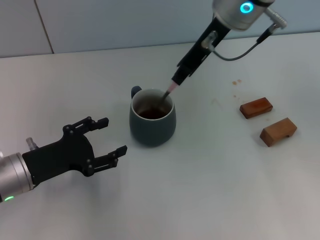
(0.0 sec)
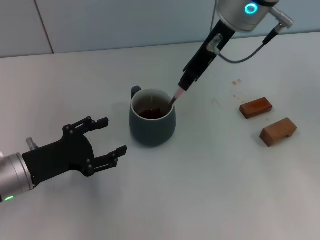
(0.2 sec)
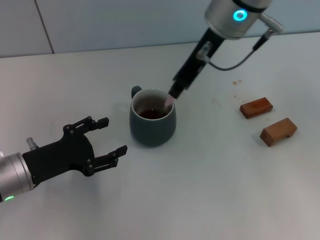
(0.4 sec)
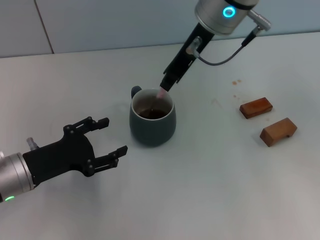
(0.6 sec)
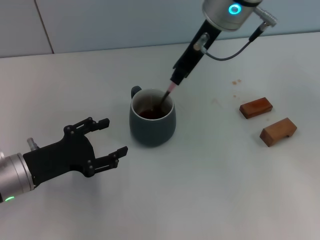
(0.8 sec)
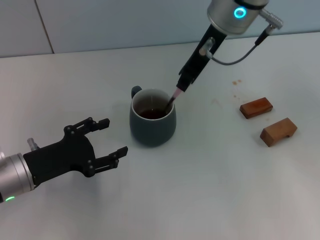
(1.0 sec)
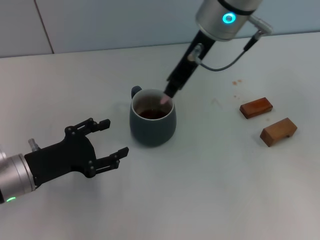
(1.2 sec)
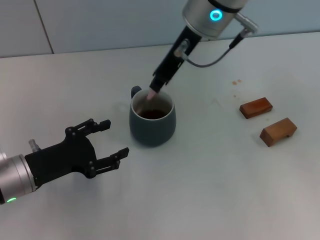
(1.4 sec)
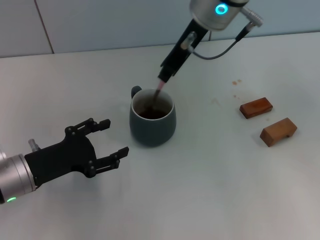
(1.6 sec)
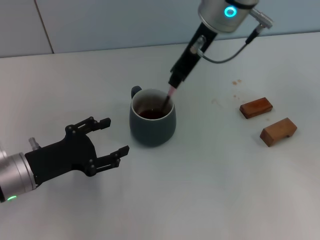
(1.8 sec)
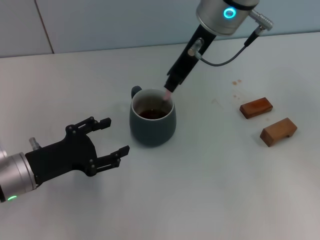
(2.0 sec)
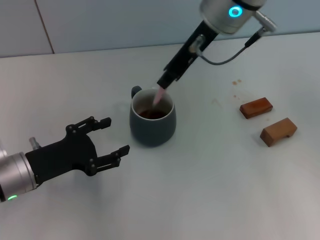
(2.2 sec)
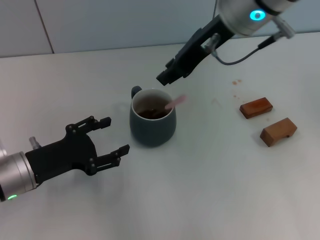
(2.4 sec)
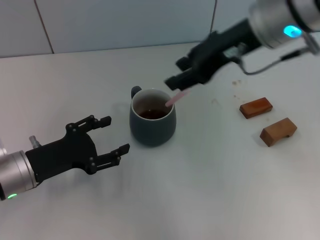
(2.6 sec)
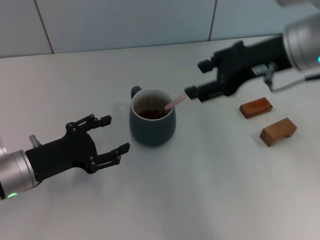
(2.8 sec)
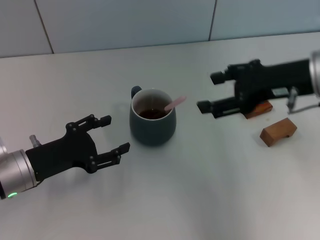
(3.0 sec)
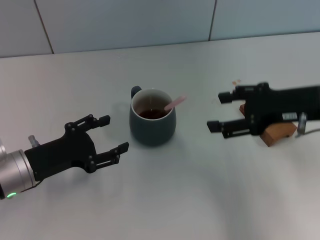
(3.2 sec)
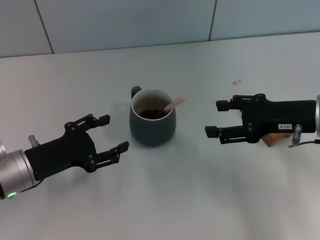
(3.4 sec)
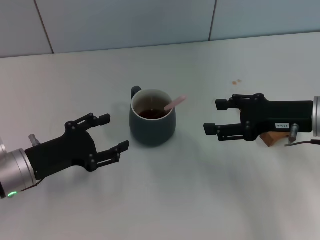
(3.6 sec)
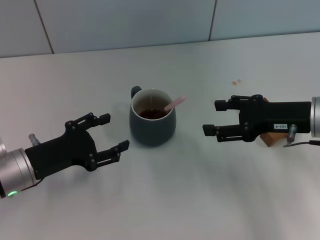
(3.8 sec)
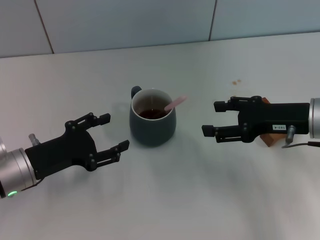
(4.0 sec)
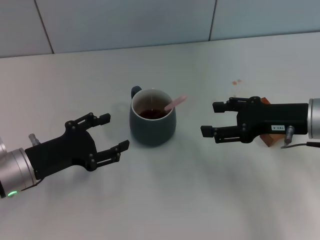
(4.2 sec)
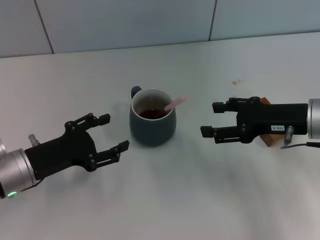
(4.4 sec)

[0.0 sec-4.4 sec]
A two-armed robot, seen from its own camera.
Task of the whole recording: Move the grey cup to the center, lift the pink spoon, stir it three times in the cup, and put the spoon into the cup.
Step, 0.0 sec to 2.2 sec: Stir the coffee in the cup with the right gripper.
0.0 sec to 1.4 sec: There are only small adjustments of the grippers.
1.4 sec to 3.0 sec: The right gripper is displaced to the right and backward by about 20 cm, and opens its fingers.
3.0 sec to 4.4 sec: The right gripper is displaced downward by roughly 10 cm.
